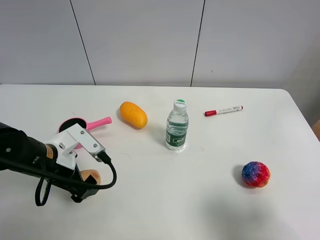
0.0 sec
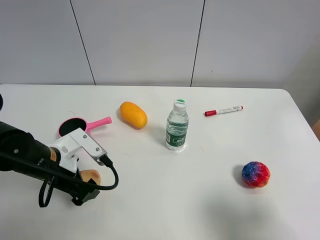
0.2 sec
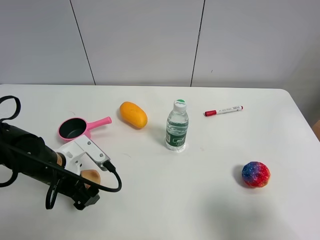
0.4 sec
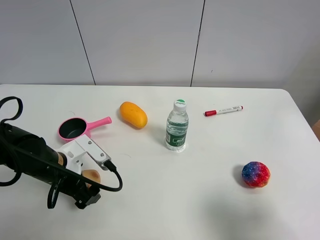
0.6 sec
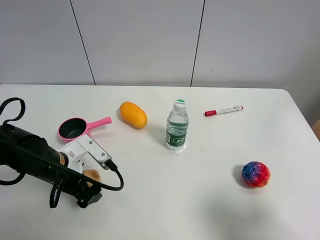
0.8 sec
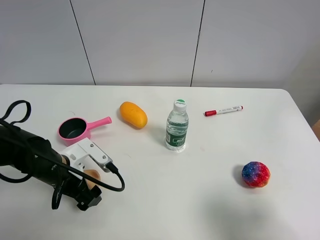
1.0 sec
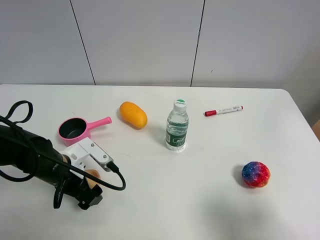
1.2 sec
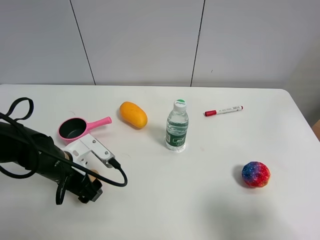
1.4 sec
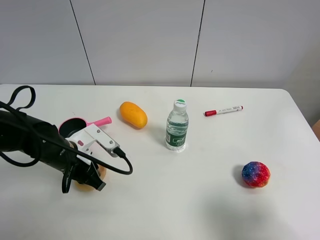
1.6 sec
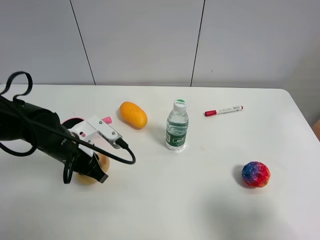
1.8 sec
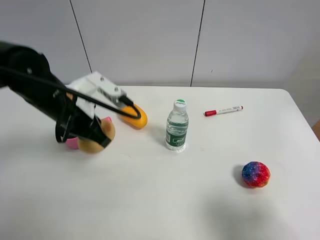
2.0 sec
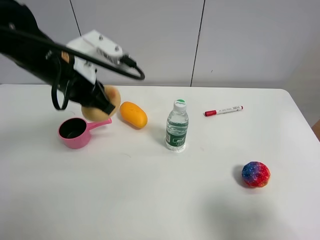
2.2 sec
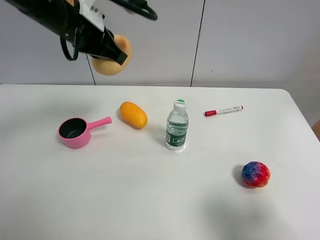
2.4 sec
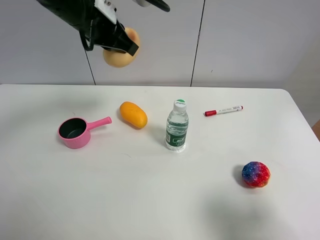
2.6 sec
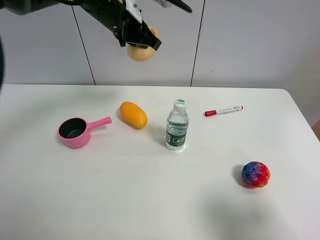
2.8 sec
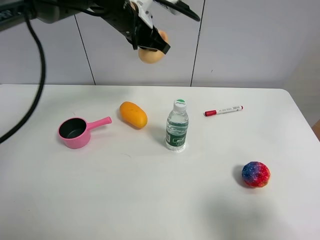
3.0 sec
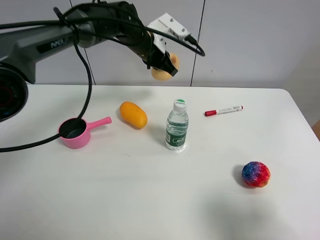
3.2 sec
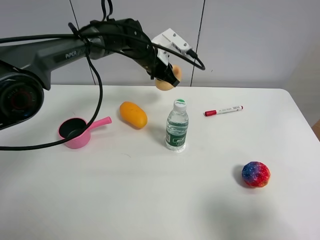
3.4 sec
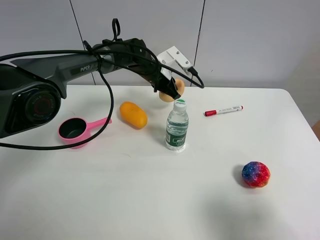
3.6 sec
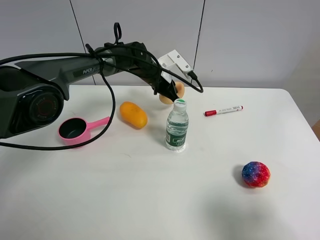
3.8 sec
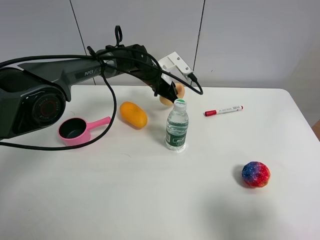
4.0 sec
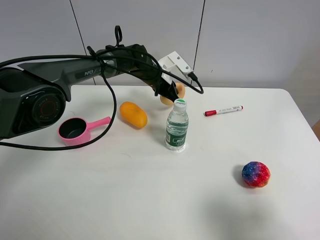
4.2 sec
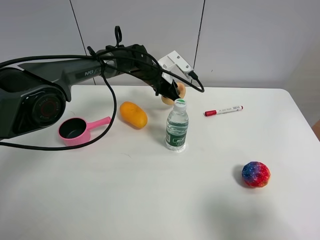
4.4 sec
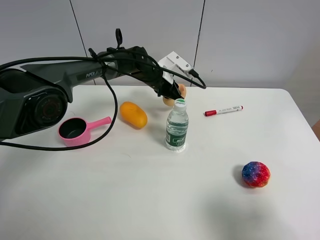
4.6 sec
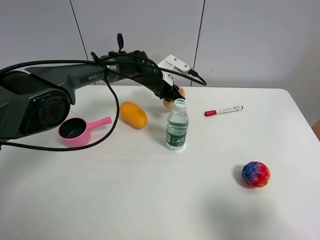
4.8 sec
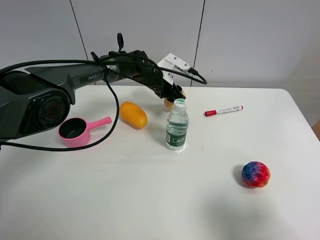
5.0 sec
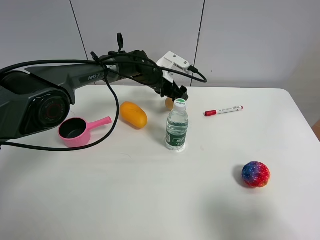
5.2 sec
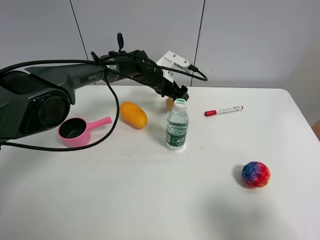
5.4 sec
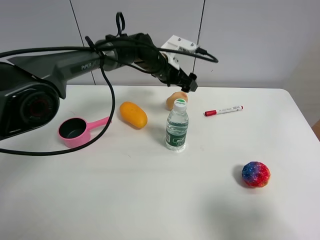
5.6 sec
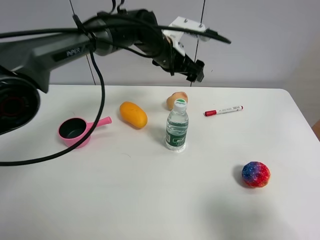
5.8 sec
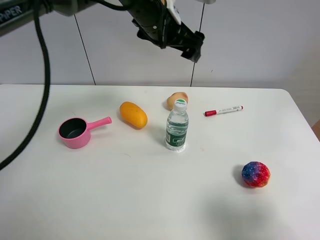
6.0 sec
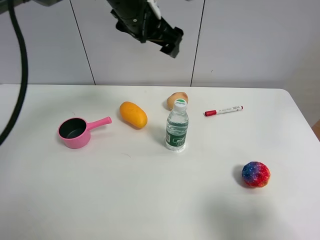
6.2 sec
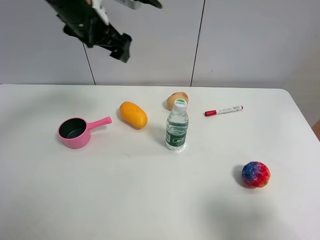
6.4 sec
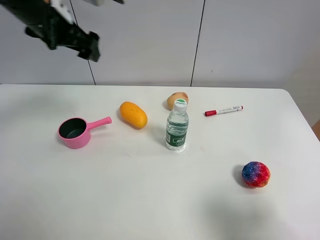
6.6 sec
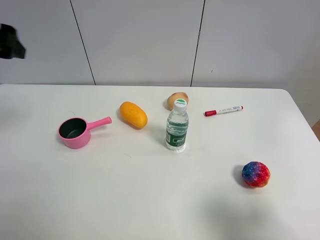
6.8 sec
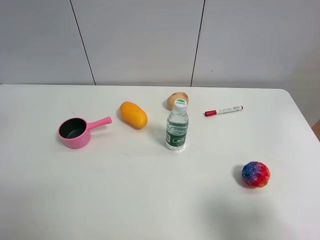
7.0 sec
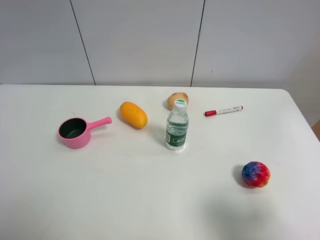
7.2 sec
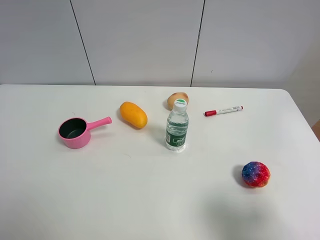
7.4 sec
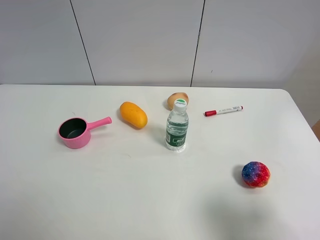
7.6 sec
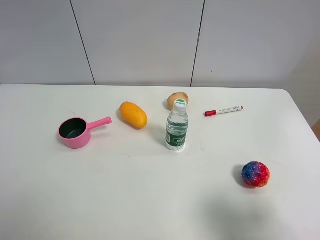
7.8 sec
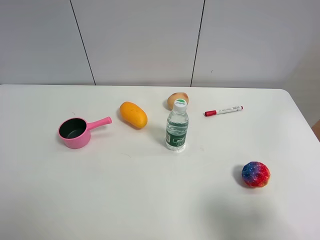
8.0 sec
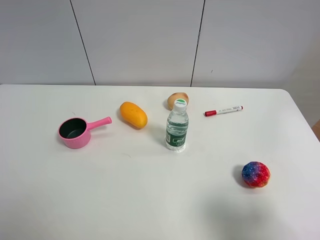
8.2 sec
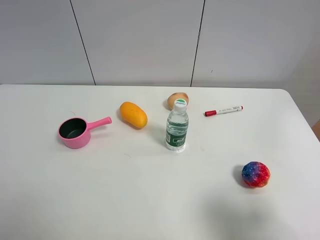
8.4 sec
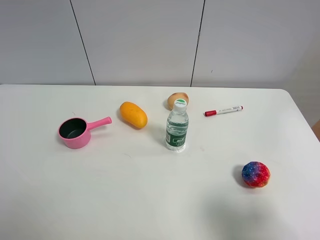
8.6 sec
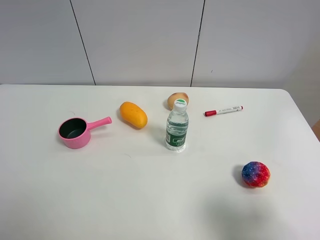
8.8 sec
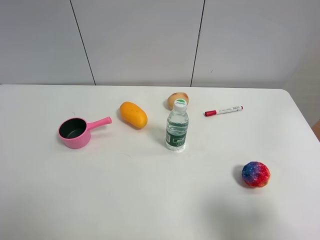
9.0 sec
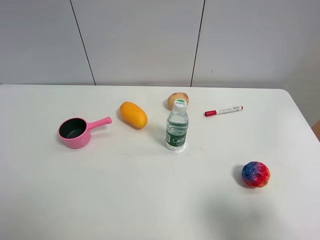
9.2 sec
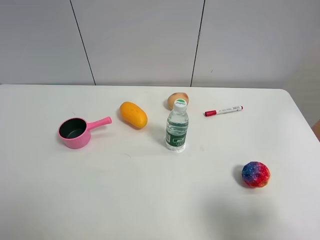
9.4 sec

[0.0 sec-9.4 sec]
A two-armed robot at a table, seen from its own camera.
Task of the whole recording: the gripper move the object.
Step, 1.8 sec to 5.0 sec: Place the egg yolk pastry on the table with the left gripper.
0.0 sec to 1.6 sec: The left gripper closes up.
1.6 sec to 3.2 sec: The left gripper shifts about 30 cm forward, to the right and upward.
3.2 sec to 4.8 sec: The left gripper moves downward, some 10 cm.
4.8 sec to 6.2 sec: The left gripper moves upward and backward, some 25 cm, and opens.
6.2 sec to 7.8 sec: The left gripper goes some 50 cm backward and to the left.

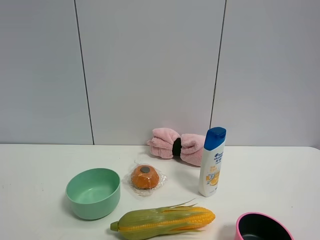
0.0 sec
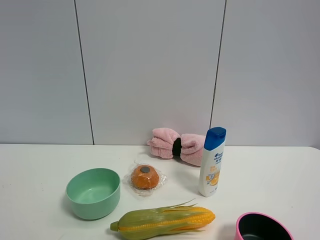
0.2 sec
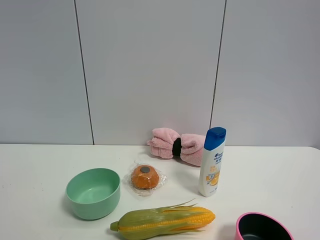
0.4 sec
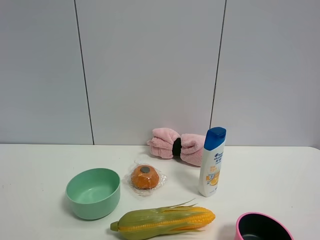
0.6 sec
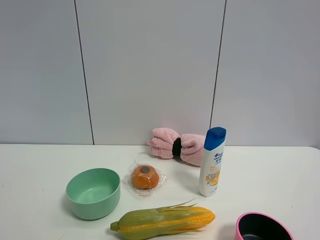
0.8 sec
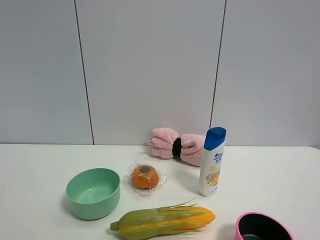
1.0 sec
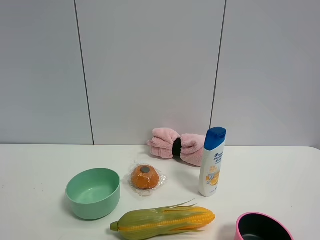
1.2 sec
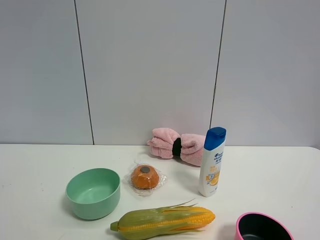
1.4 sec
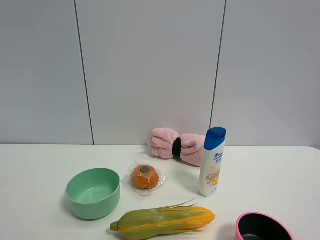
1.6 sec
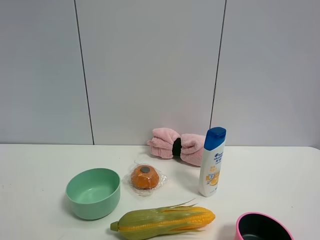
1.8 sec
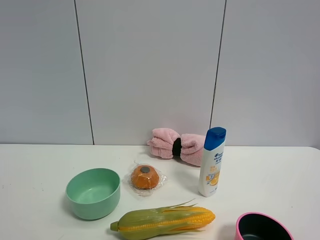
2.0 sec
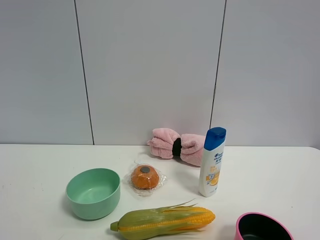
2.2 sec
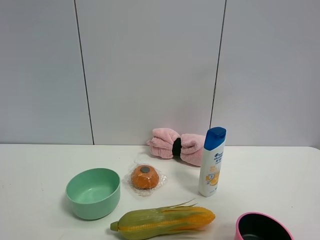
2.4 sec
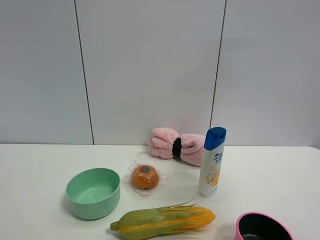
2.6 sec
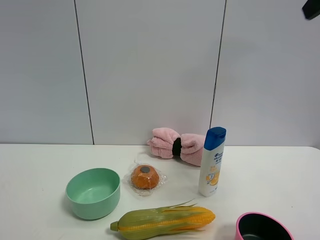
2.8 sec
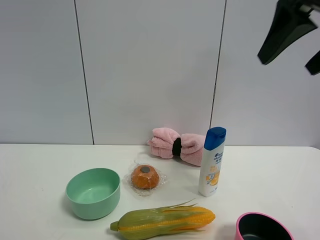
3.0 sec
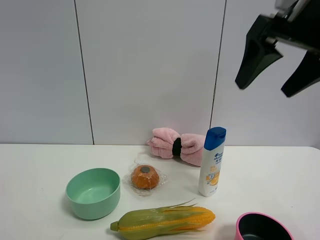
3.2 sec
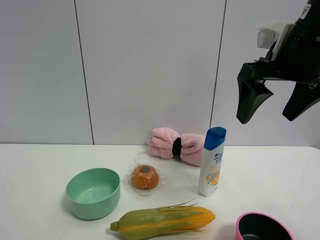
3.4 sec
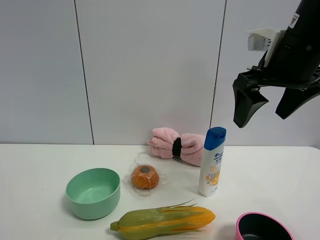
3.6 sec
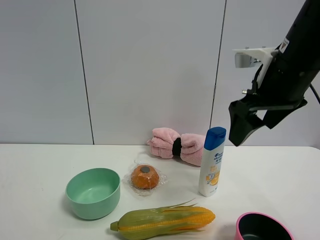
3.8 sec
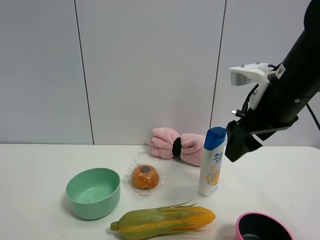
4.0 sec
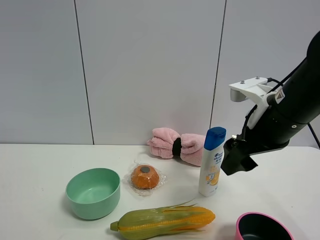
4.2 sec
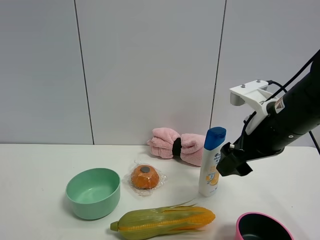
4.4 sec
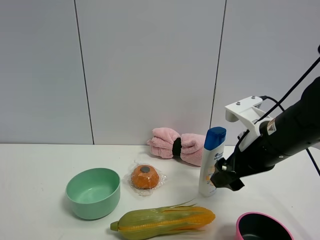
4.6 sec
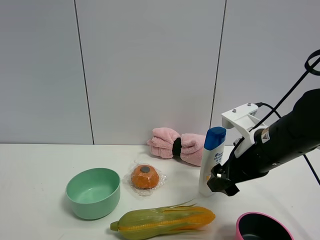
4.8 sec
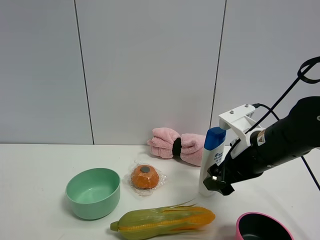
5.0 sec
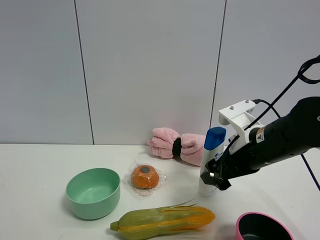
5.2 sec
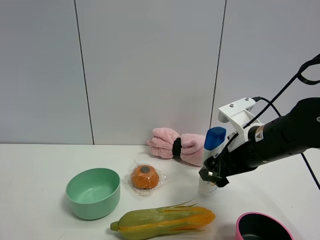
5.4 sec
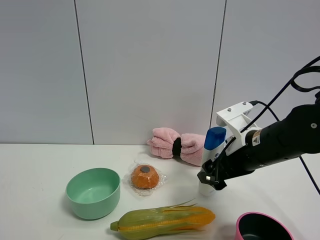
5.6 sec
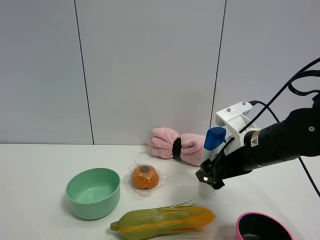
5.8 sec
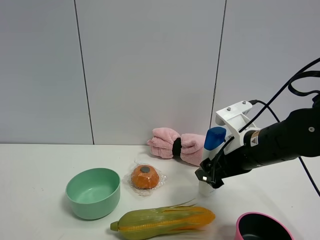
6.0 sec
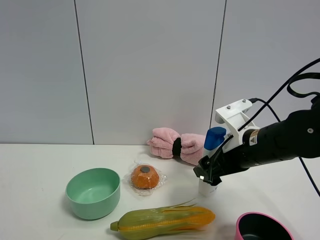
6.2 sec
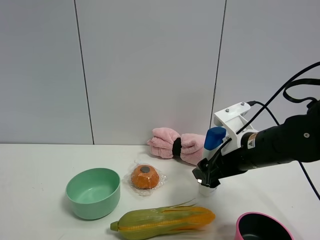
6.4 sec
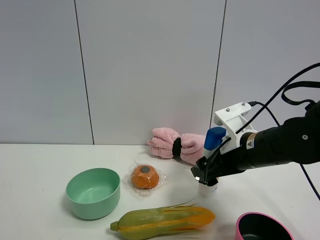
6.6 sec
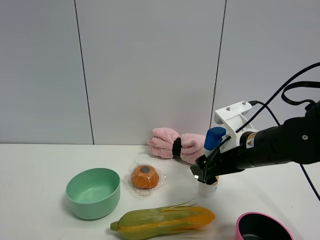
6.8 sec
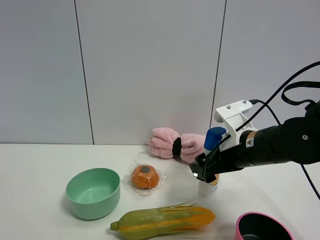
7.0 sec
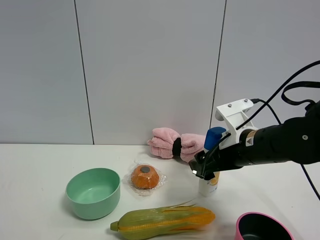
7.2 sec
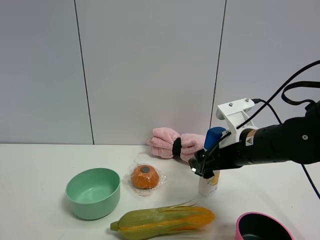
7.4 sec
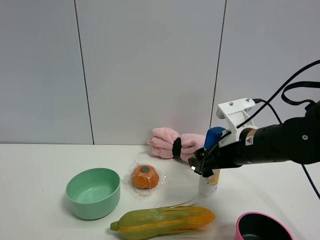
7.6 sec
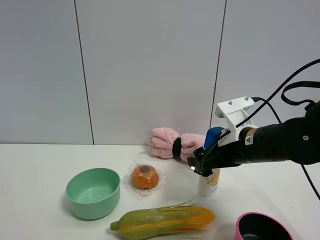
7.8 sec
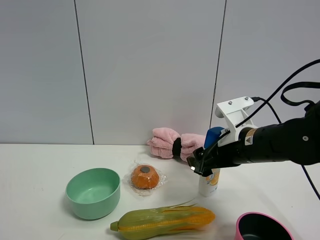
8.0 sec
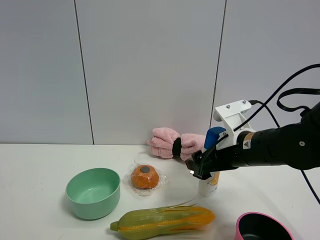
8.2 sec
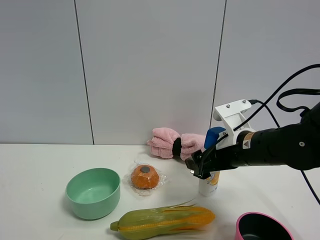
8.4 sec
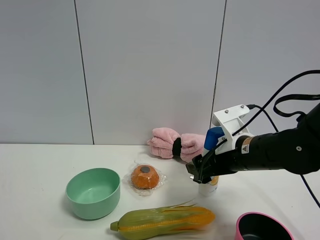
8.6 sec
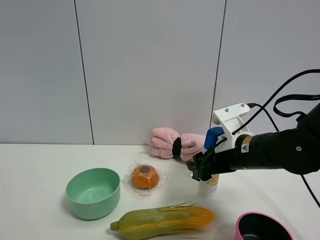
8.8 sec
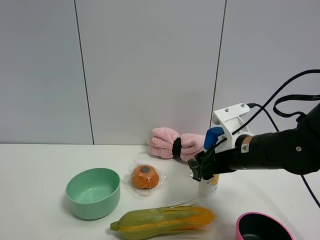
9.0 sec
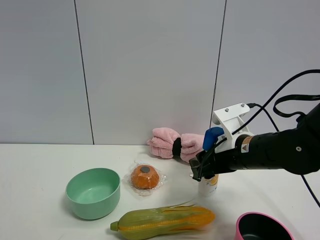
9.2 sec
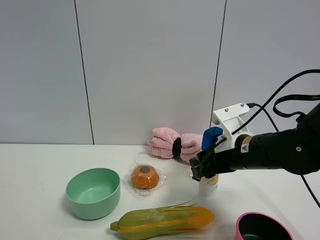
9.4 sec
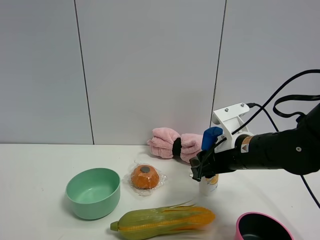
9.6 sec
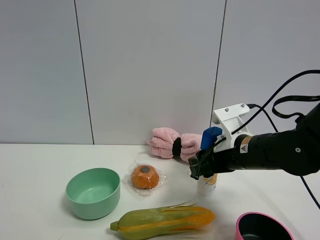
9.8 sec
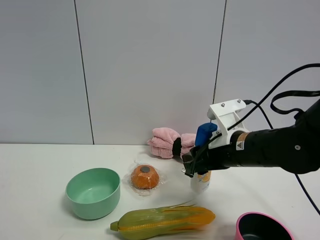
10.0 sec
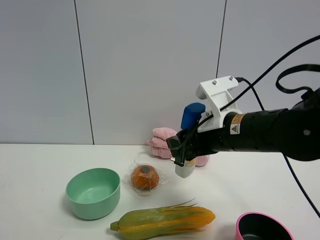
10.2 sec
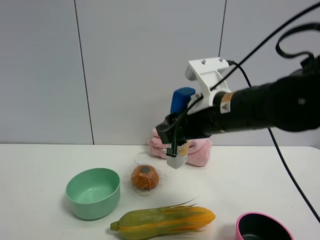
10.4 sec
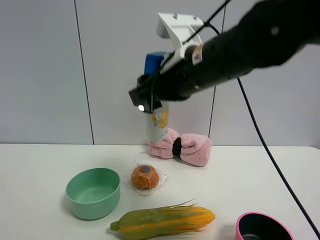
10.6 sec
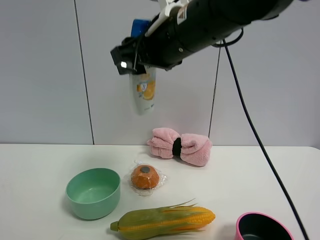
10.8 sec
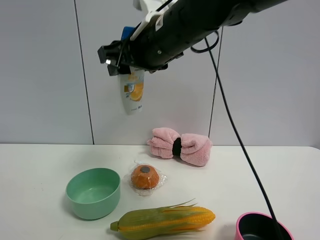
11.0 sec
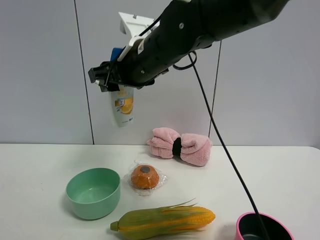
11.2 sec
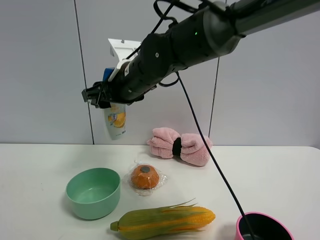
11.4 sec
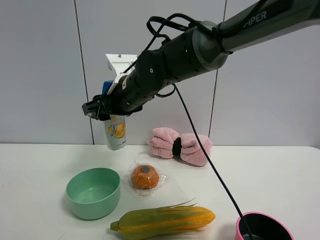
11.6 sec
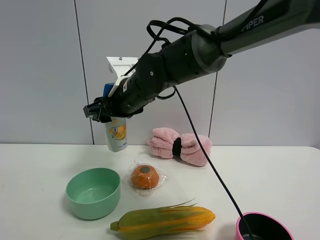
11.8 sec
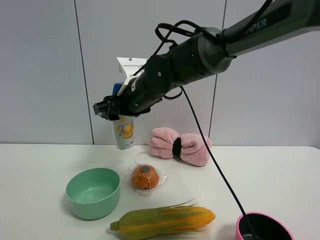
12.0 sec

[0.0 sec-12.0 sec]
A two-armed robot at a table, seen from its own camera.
Task of the whole recording: the gripper move the object.
Step, 0.0 sec to 9.2 sec: Grasp the shampoo with the right gripper.
0.0 sec to 1.6 sec: Both grippers stay put.
1.6 sec to 3.0 sec: The right gripper goes approximately 25 cm forward.
3.0 sec to 4.4 sec: The right gripper heads downward, covering roughly 20 cm.
4.4 sec to 6.0 sec: The right gripper shifts about 5 cm downward.
6.0 sec to 7.6 sec: The grippers make only small movements.
7.6 sec to 9.0 sec: The right gripper closes up.
9.0 sec to 10.4 sec: The right gripper moves upward and to the left, about 10 cm.
10.4 sec to 12.0 sec: The right gripper is displaced forward and to the left by about 15 cm.

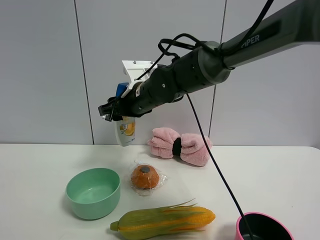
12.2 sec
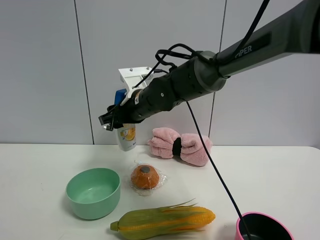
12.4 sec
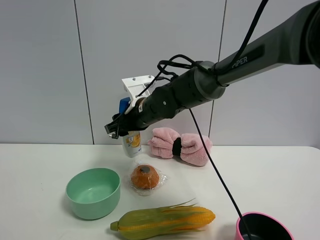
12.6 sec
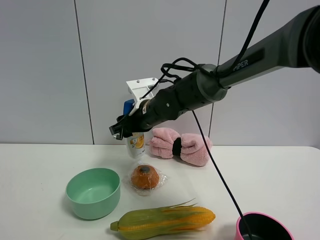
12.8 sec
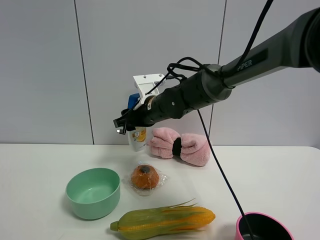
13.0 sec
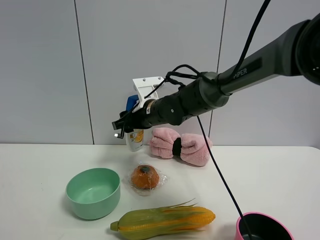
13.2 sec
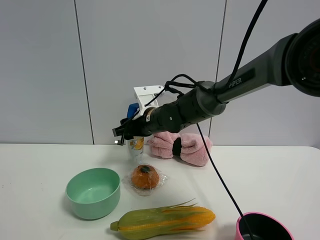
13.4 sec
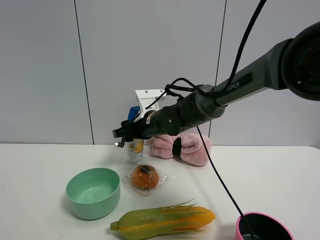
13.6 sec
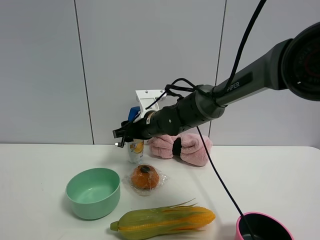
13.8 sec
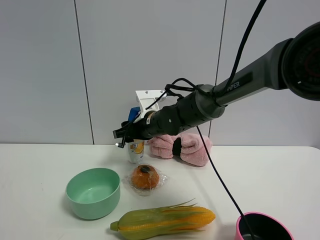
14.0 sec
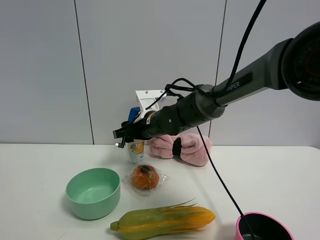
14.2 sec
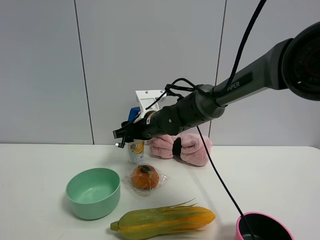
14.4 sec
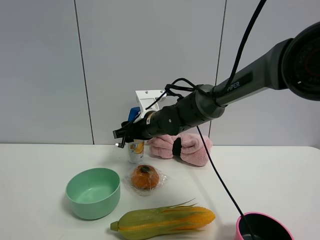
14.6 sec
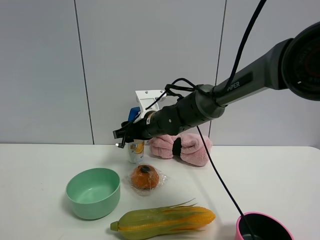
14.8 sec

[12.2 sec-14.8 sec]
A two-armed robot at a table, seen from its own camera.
Task of the whole recording: the gripper move the object.
12.2 sec to 13.4 sec: The right gripper goes roughly 5 cm downward.
13.4 sec to 14.8 sec: Neither gripper changes place.
